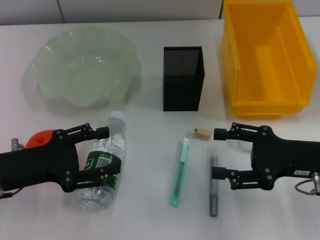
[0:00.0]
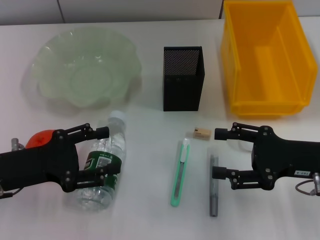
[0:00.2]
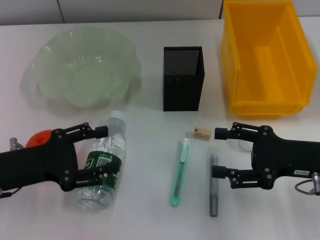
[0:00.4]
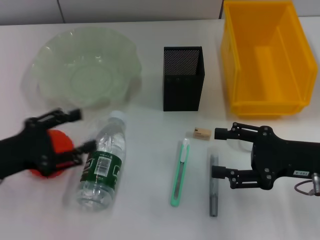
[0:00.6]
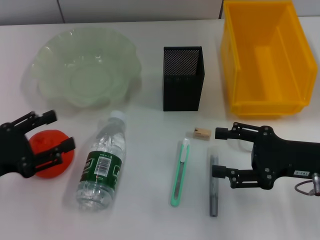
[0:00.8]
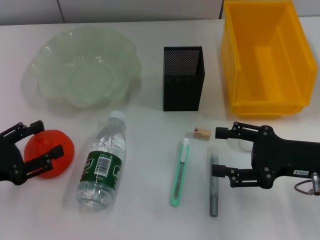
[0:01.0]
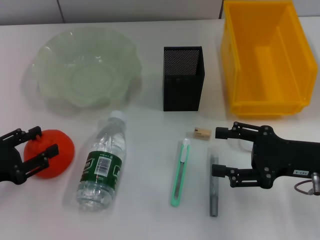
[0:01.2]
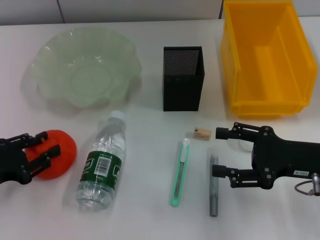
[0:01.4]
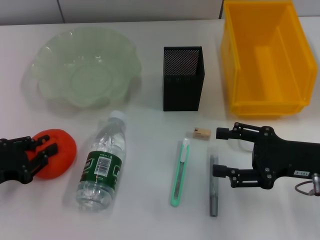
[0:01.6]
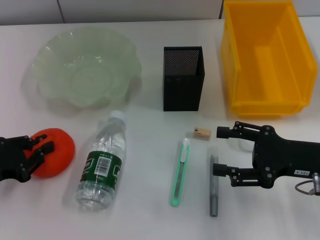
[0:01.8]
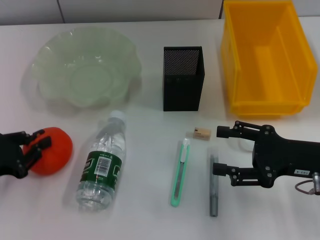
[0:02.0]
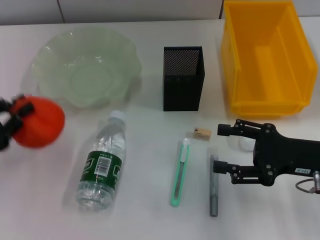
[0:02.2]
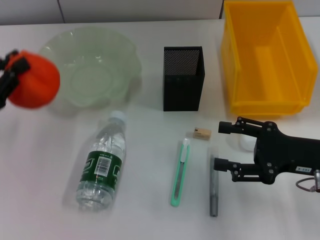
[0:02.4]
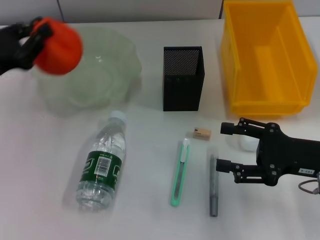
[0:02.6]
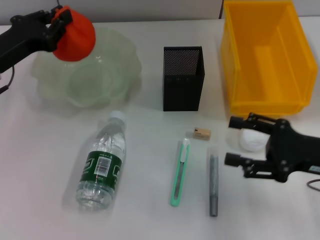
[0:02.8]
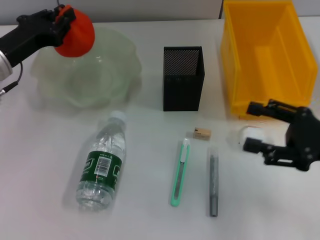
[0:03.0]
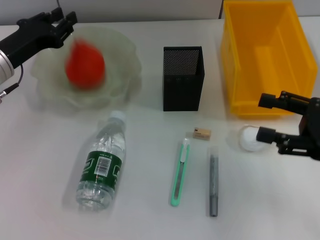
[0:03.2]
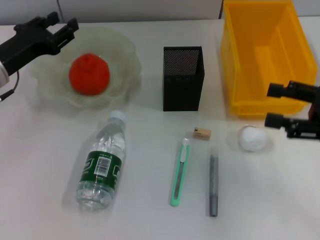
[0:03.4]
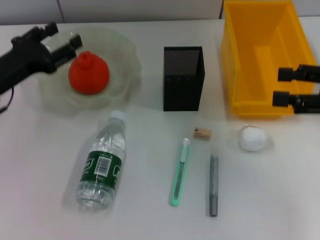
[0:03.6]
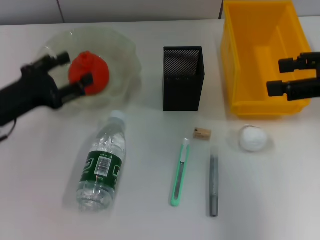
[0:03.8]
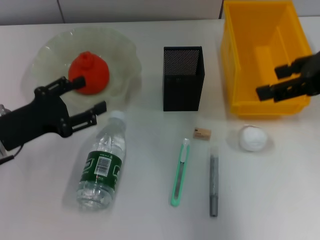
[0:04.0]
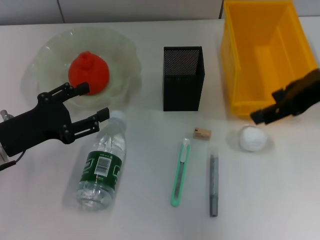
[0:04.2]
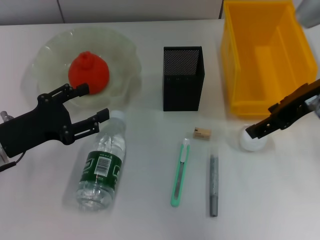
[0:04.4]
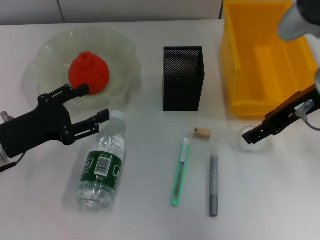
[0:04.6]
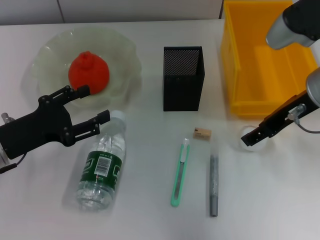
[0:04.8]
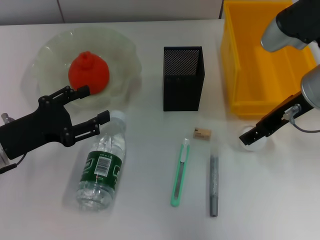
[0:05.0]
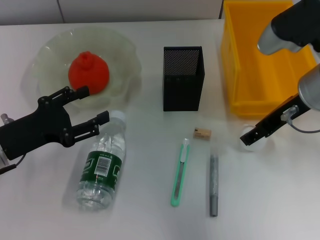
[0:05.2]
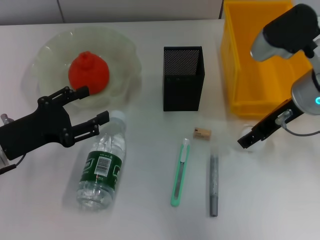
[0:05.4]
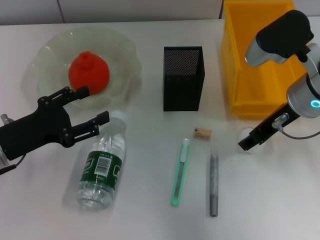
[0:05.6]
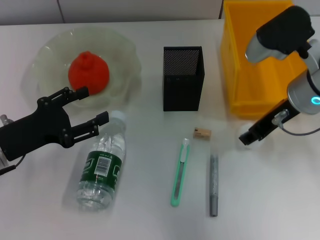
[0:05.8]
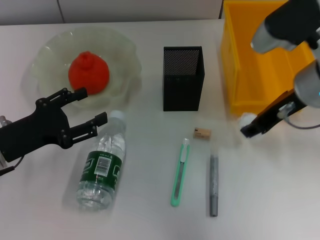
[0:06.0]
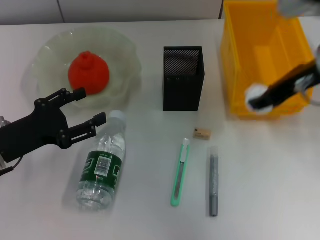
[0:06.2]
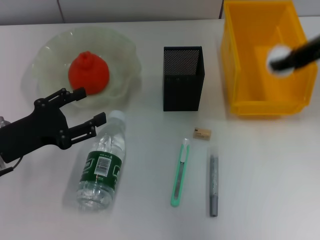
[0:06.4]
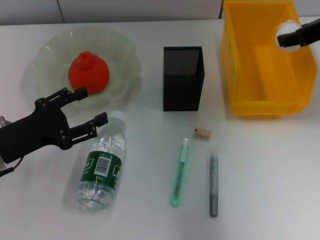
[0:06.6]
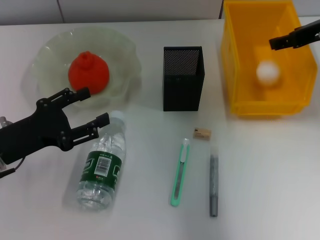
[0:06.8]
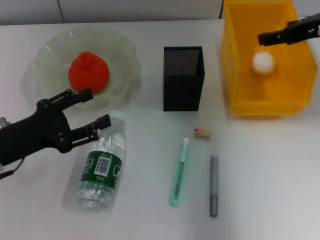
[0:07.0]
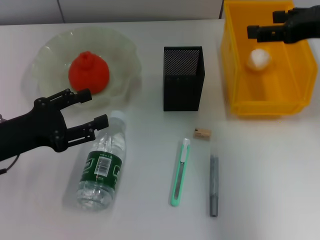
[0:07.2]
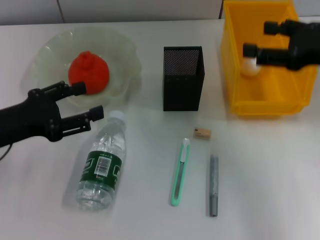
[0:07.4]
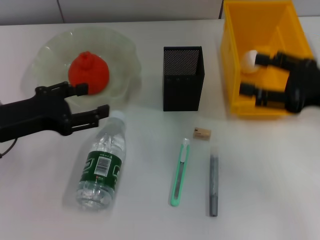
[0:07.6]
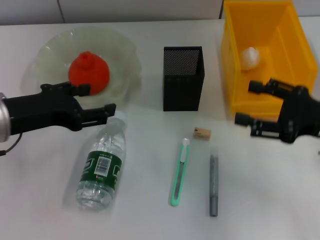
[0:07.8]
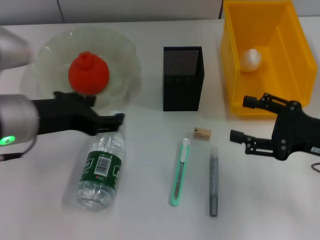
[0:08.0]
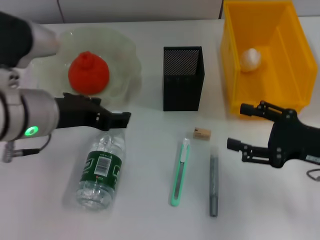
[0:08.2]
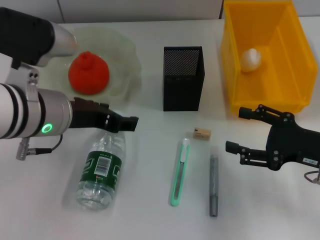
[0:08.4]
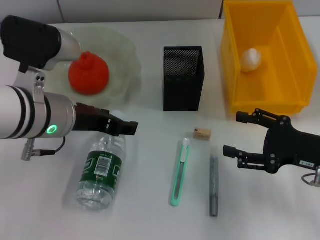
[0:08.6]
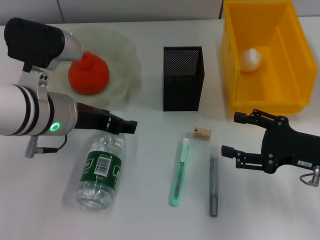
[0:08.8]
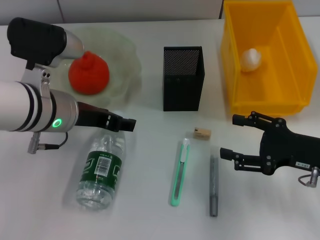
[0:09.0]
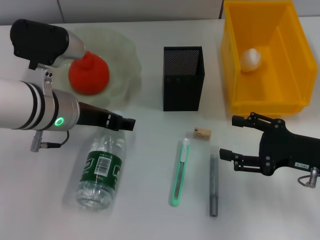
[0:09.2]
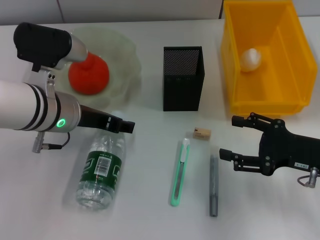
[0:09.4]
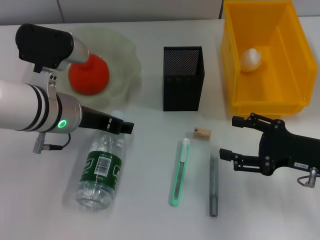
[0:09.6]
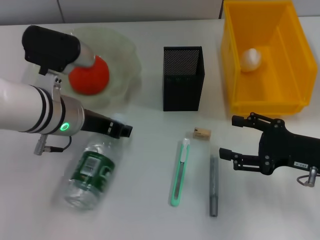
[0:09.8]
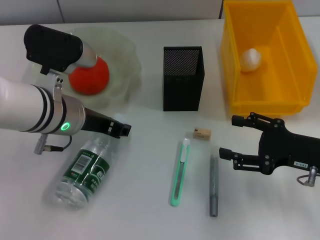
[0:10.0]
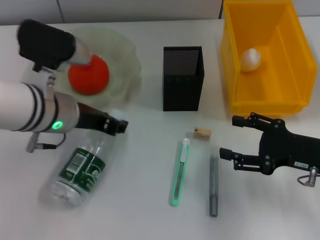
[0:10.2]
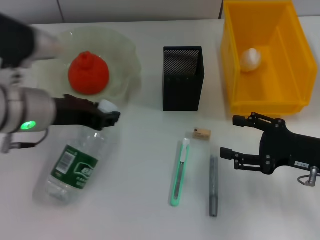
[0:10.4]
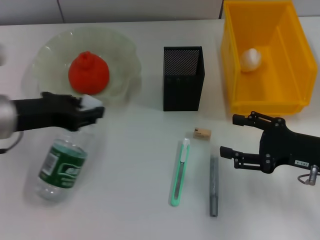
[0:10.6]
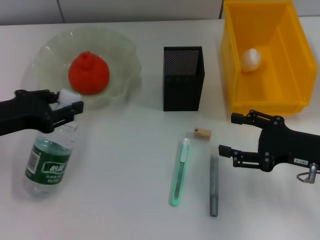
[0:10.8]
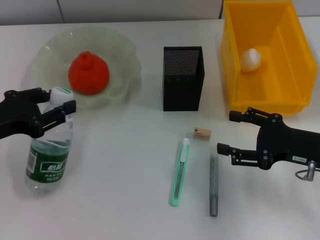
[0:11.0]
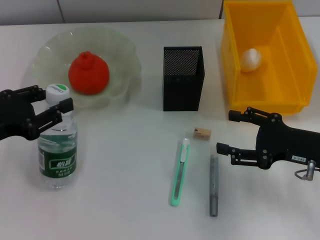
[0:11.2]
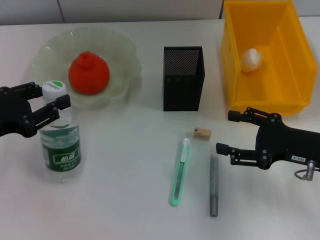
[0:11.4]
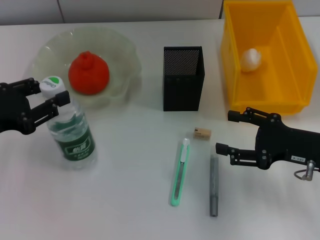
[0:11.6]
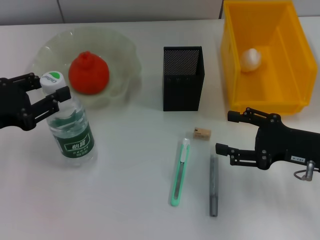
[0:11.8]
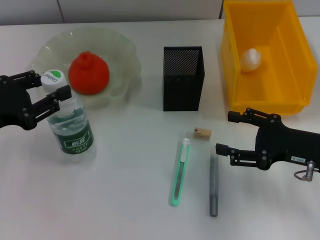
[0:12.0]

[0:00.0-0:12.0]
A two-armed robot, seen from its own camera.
Step, 0:00.0 to 0:01.4: Grab the orange with the left hand.
Step, 0:01.8 to 0:03.0: Place the orange into the fruit bowl with the left hand.
Step, 0:03.2 to 0:05.8: Grab the paper ball with the right hand.
Step, 0:06.0 to 0:07.0: Place the paper ball into the trash can with the right hand.
Step, 0:07.4 to 0:09.8: Grab the water bottle with the left hand.
0:00.0 to 0:01.6: The left gripper shifts some 5 cm to the left, and closes its fingers.
0:01.6 to 0:03.0: The left gripper goes approximately 15 cm forward, upward and to the right, and closes up.
0:03.0 to 0:04.4: The left gripper moves backward, some 10 cm, and opens its fingers. Meanwhile the right gripper heads upward, to the left and forward, covering approximately 15 cm.
0:04.4 to 0:06.0: The right gripper shifts by approximately 5 cm, and closes up.
0:06.0 to 0:07.6: The right gripper goes approximately 10 cm to the right and backward, and opens its fingers; the left gripper shifts about 5 cm upward.
0:07.6 to 0:09.0: The right gripper is displaced downward by roughly 10 cm. The left gripper shifts some 10 cm to the right.
0:09.0 to 0:10.4: The left gripper closes up.
0:10.4 to 0:12.0: The left gripper travels to the left and backward by some 15 cm.

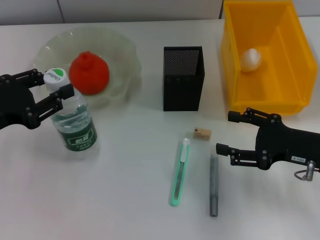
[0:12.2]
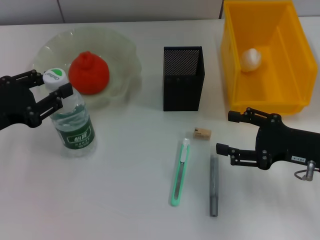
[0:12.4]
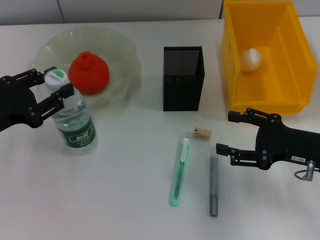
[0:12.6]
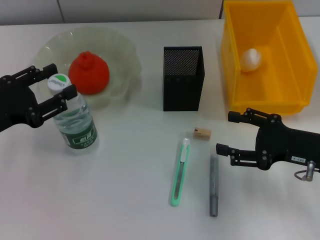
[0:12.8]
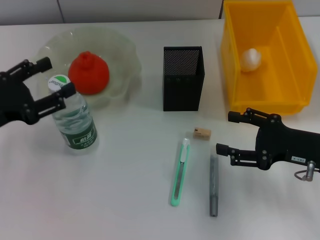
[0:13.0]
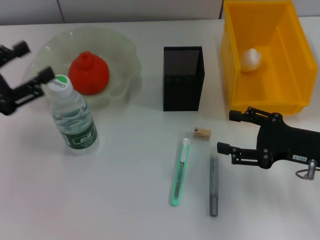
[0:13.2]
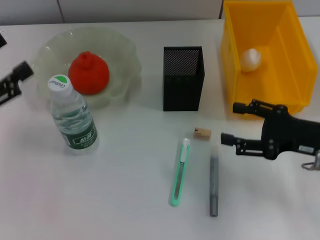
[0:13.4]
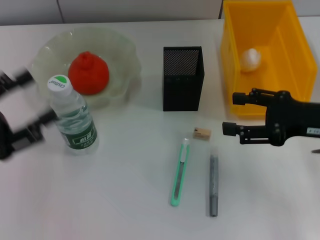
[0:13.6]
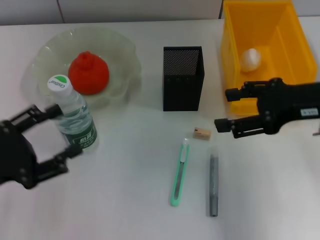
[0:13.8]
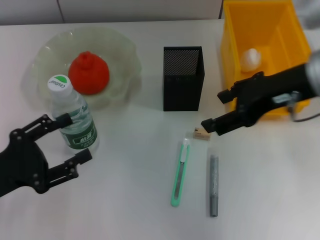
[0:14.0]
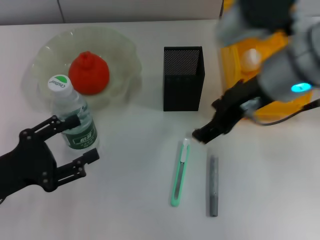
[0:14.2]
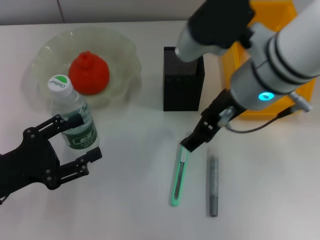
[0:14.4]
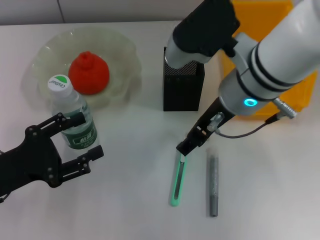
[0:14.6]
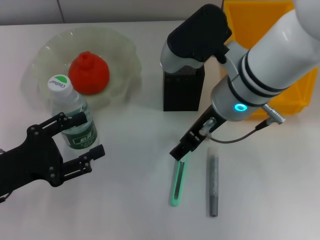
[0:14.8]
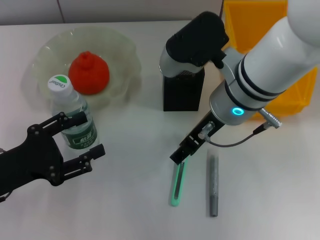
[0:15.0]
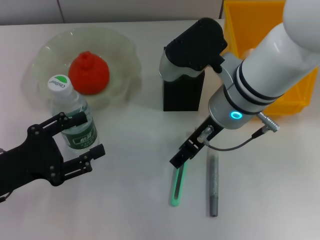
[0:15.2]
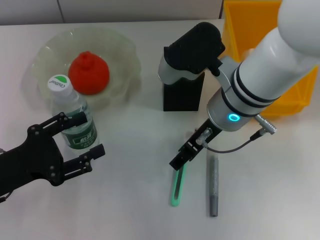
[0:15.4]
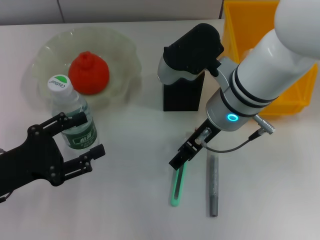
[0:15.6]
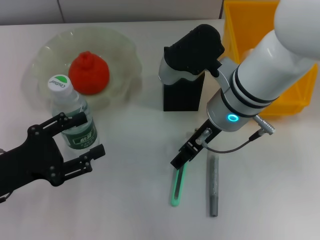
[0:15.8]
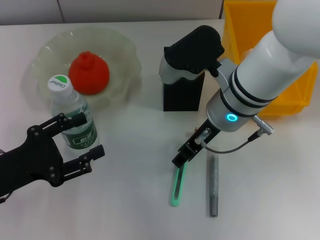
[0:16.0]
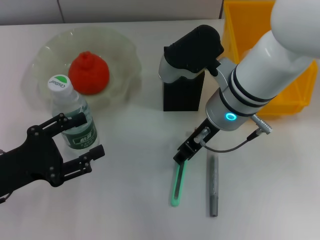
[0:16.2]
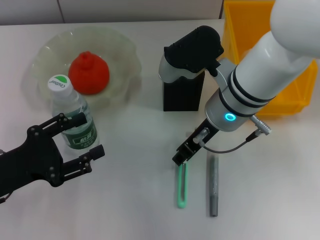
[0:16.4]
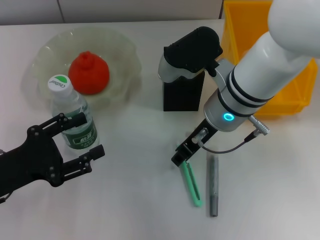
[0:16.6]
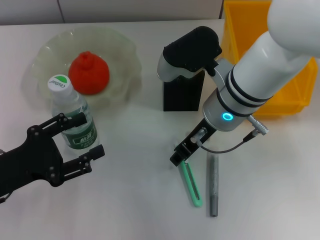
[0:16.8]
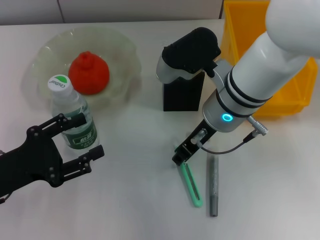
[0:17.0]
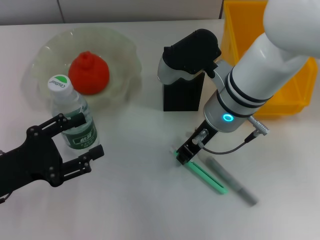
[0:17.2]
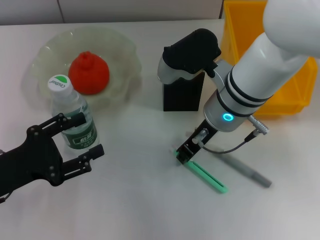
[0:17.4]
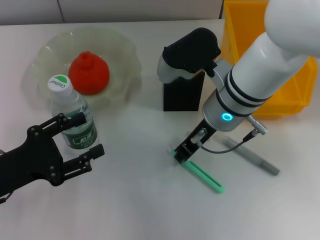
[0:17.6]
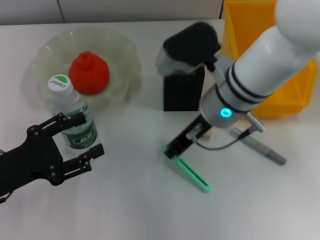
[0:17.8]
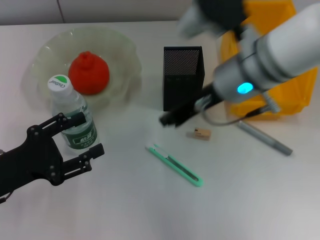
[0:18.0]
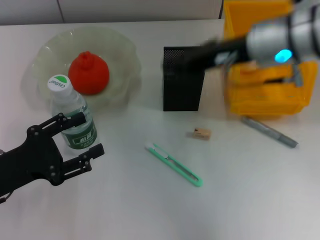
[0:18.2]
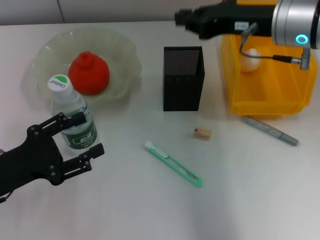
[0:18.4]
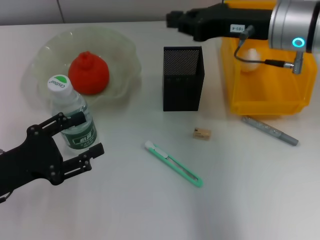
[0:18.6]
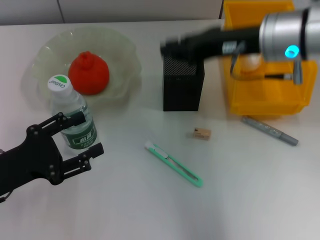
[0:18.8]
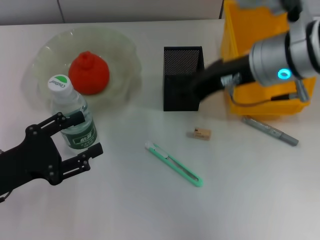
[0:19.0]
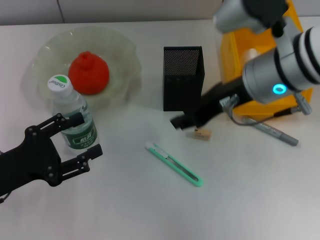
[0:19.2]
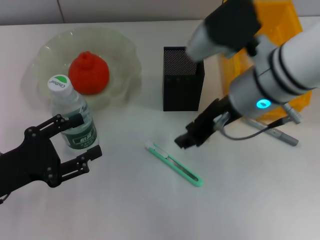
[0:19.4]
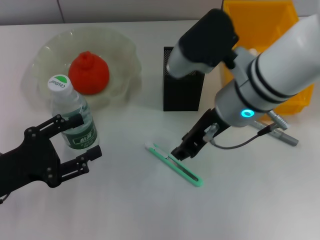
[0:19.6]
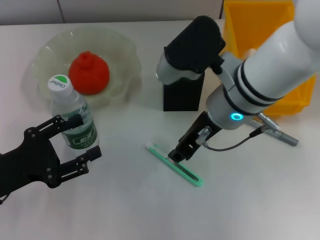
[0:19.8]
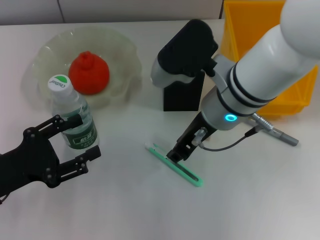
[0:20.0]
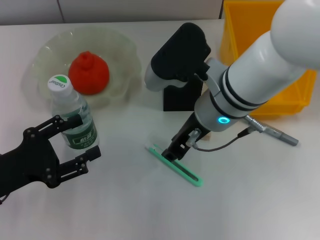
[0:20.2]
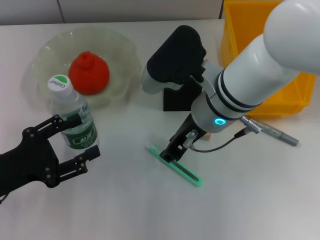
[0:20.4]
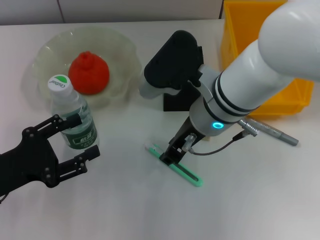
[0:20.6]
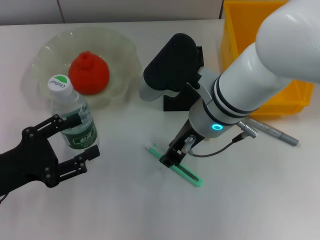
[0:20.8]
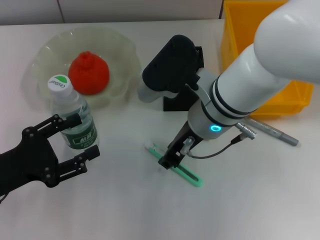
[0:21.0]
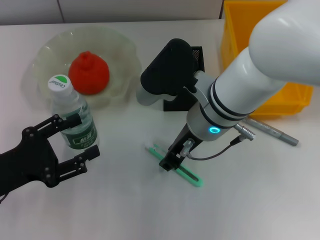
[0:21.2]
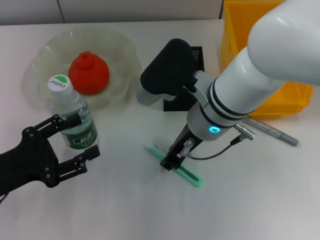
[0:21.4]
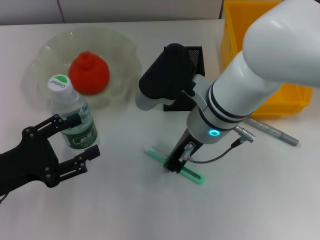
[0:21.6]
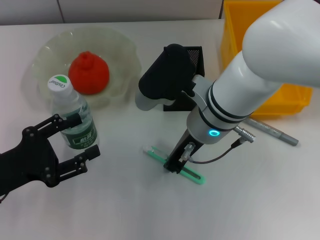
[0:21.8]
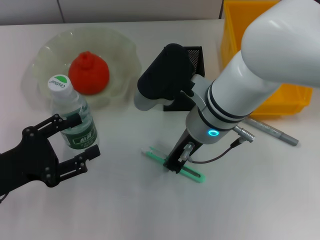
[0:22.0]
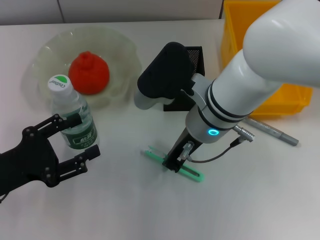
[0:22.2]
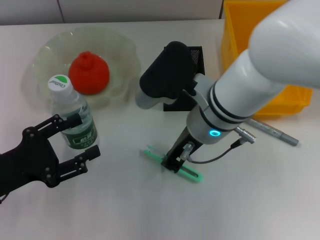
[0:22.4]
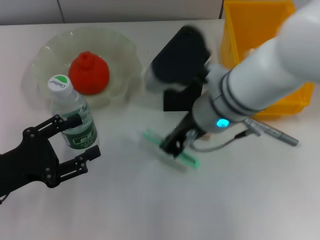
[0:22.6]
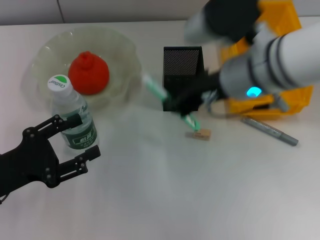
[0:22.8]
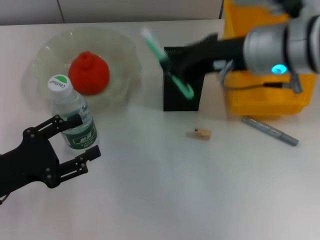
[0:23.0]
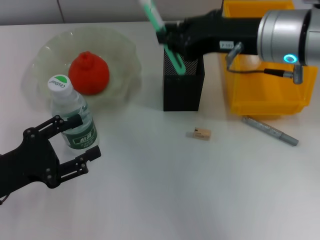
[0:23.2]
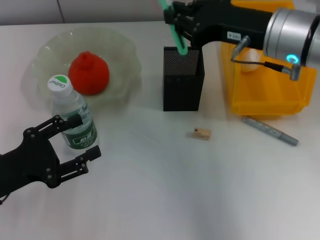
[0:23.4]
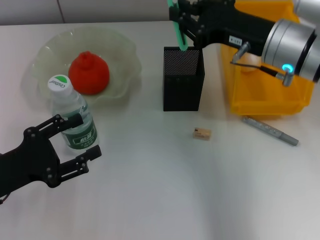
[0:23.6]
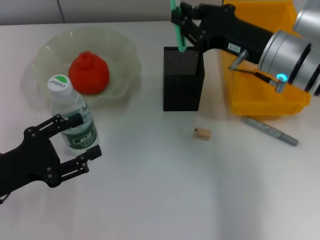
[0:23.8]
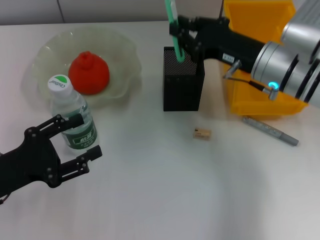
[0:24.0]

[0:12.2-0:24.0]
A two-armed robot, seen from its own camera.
Step, 0:13.2 to 0:22.0: Grab the blue utility knife with the right hand.
0:12.2 to 0:13.6: The left gripper ends up about 5 cm from where it was, and opens its fingers, while the right gripper moves upward, about 5 cm.
0:13.6 to 0:15.2: The left gripper shifts some 5 cm downward. The right gripper shifts some 20 cm to the left.
0:15.2 to 0:16.6: The right gripper closes up.
0:16.6 to 0:18.2: The right gripper shifts roughly 10 cm upward and to the right, and closes its fingers.
0:18.2 to 0:19.6: The right gripper travels to the left by roughly 5 cm, and opens up.
0:19.6 to 0:22.6: The grippers move only a little.
0:22.6 to 0:24.0: The right gripper travels to the right by approximately 10 cm.
